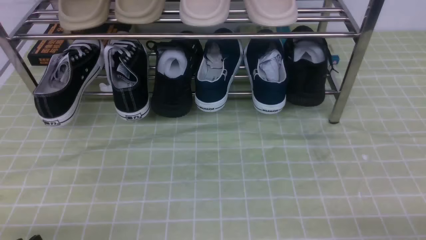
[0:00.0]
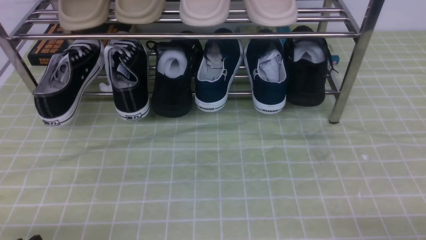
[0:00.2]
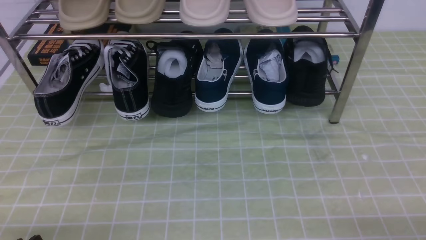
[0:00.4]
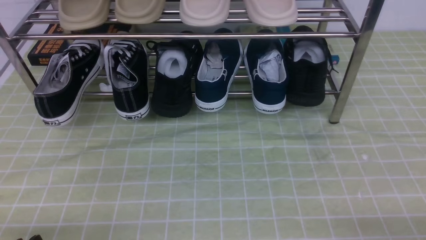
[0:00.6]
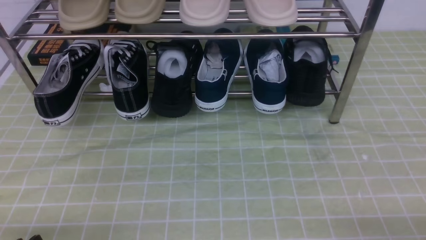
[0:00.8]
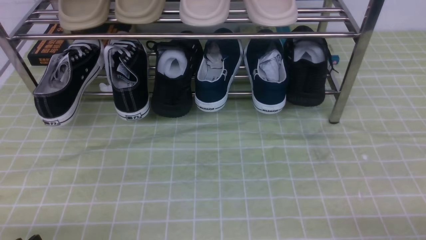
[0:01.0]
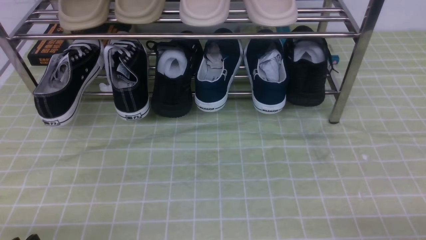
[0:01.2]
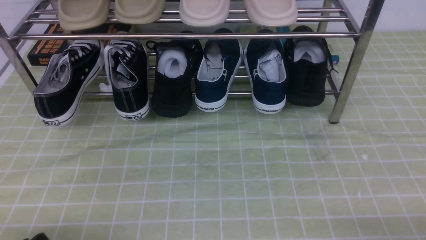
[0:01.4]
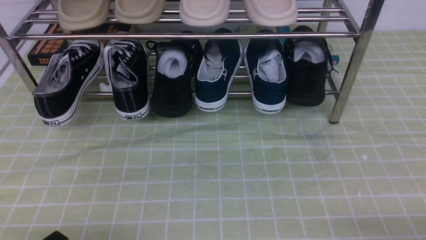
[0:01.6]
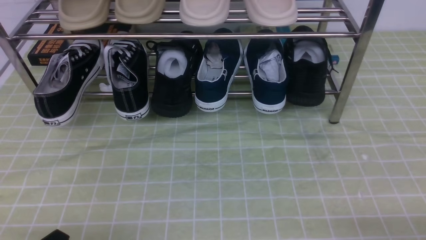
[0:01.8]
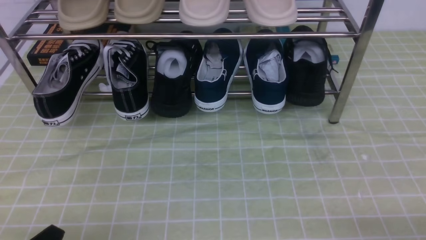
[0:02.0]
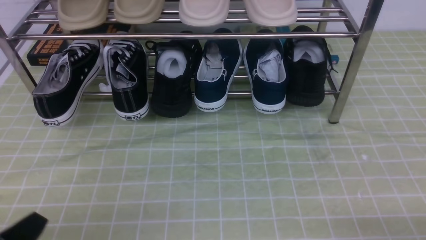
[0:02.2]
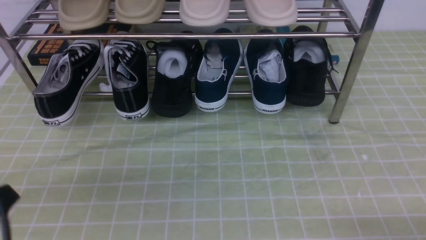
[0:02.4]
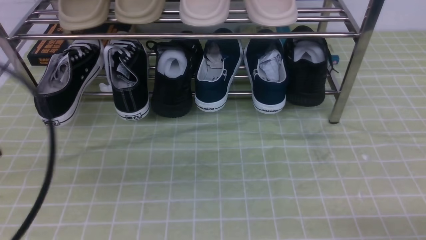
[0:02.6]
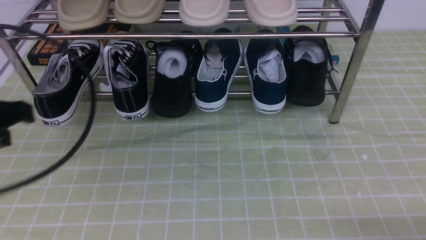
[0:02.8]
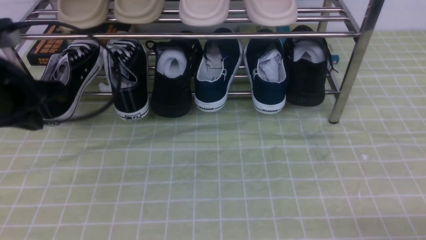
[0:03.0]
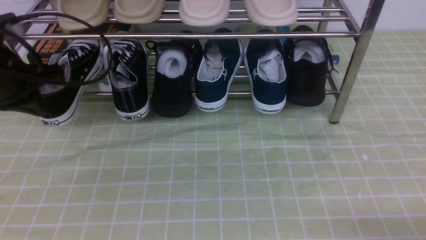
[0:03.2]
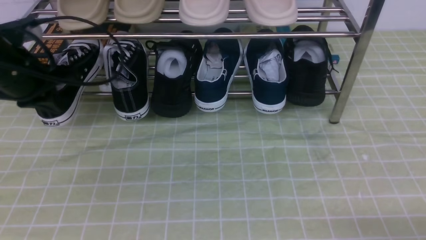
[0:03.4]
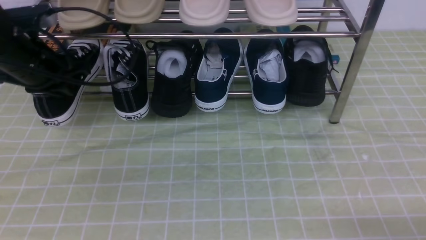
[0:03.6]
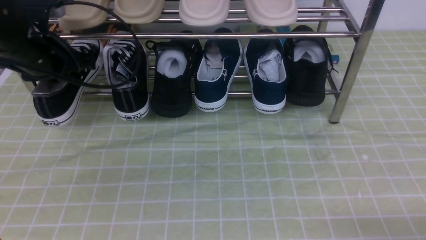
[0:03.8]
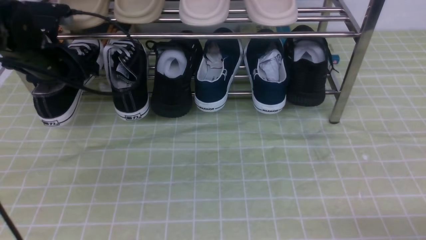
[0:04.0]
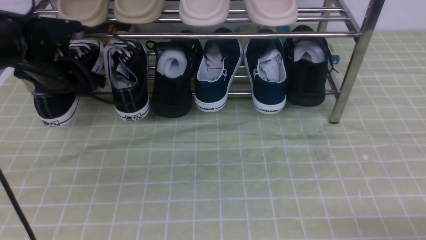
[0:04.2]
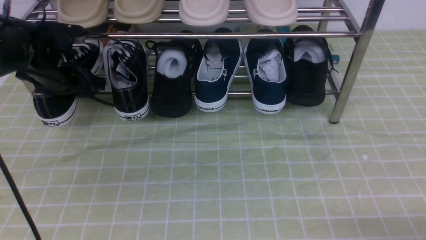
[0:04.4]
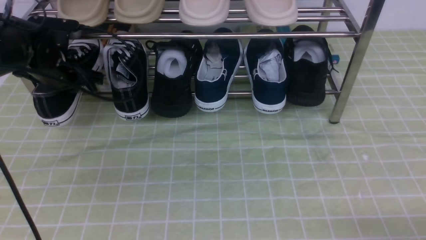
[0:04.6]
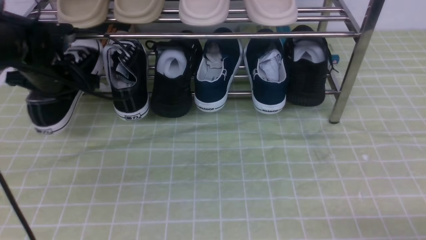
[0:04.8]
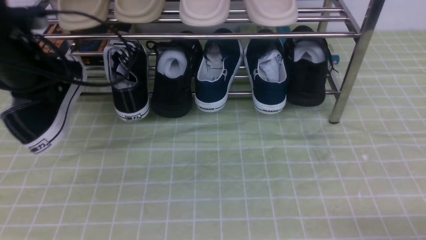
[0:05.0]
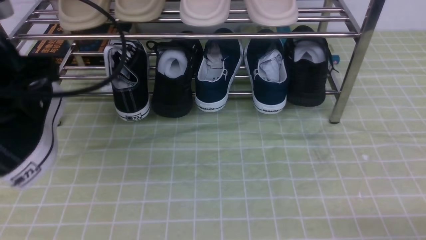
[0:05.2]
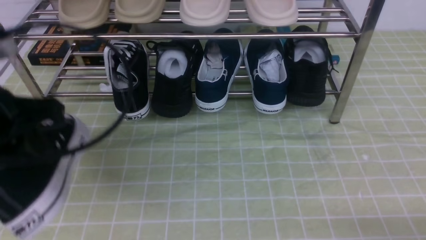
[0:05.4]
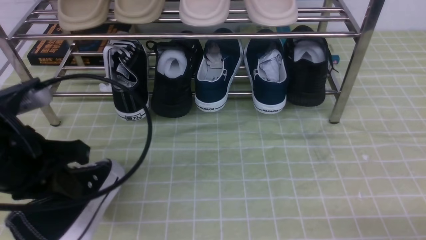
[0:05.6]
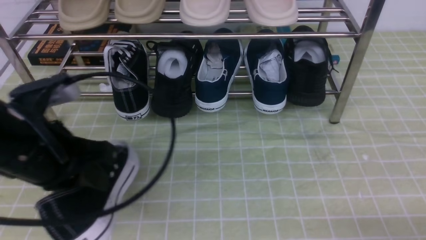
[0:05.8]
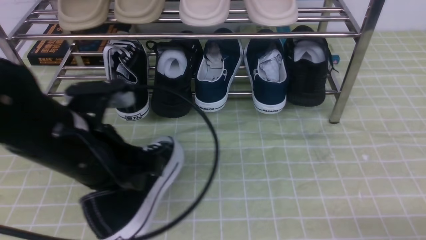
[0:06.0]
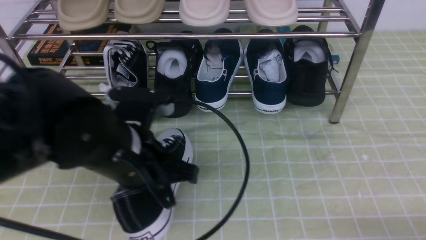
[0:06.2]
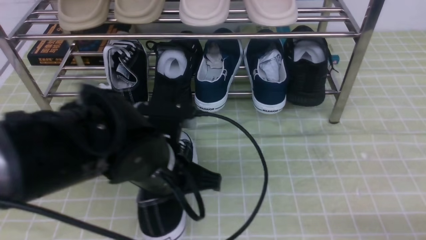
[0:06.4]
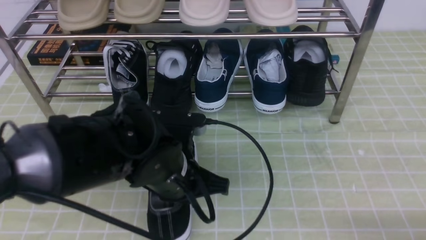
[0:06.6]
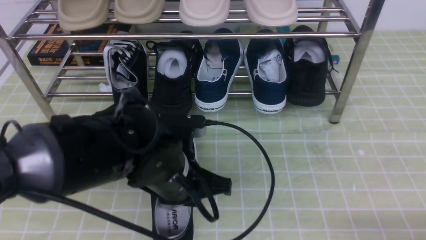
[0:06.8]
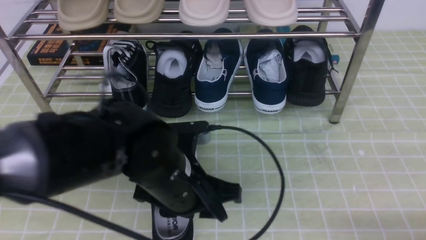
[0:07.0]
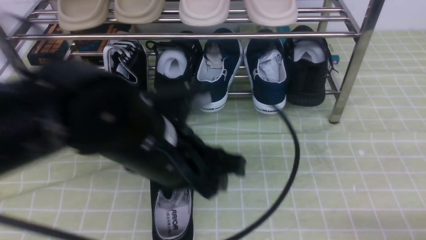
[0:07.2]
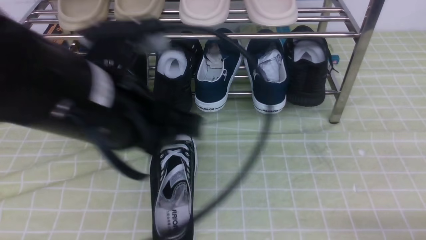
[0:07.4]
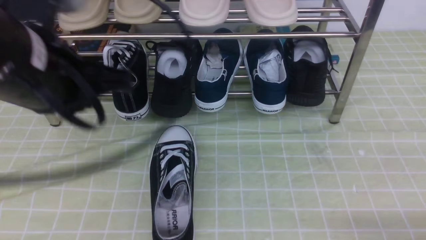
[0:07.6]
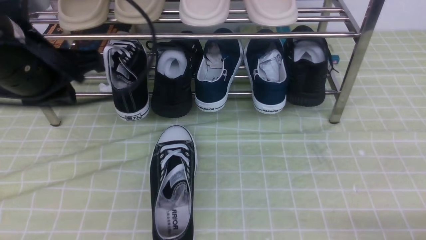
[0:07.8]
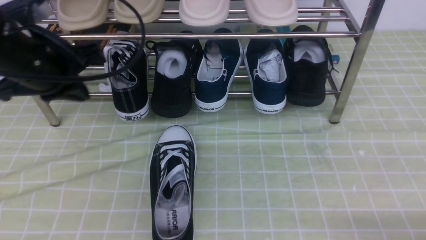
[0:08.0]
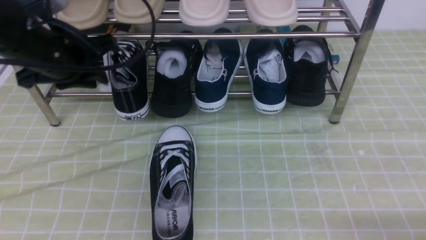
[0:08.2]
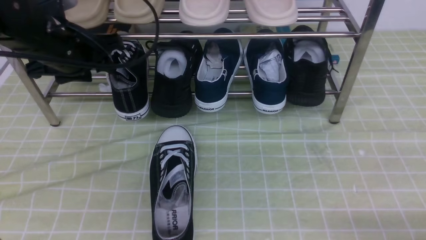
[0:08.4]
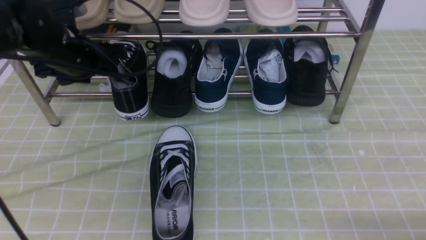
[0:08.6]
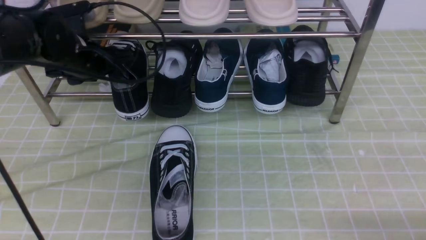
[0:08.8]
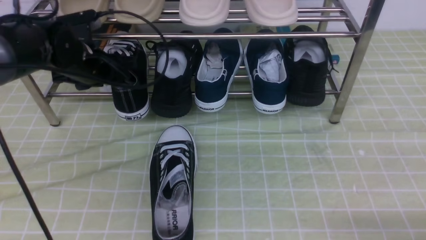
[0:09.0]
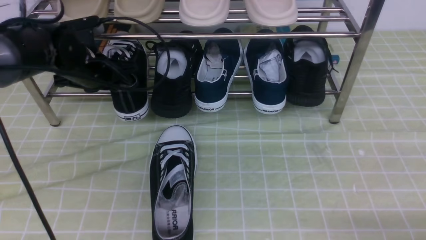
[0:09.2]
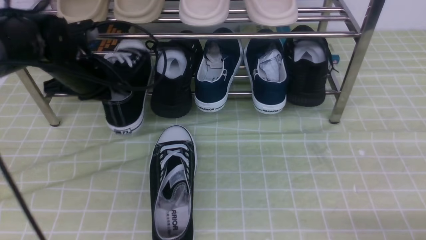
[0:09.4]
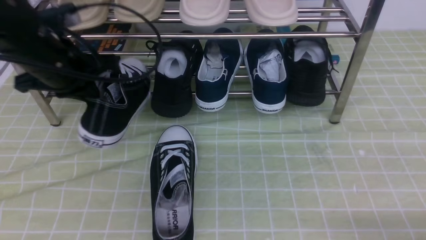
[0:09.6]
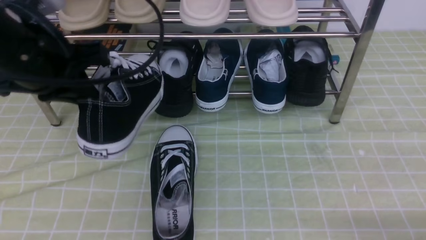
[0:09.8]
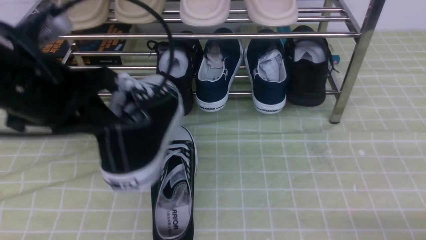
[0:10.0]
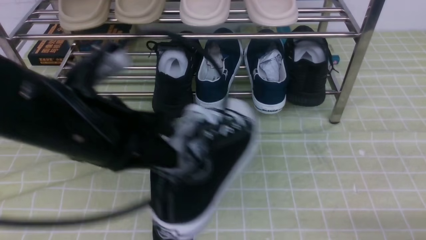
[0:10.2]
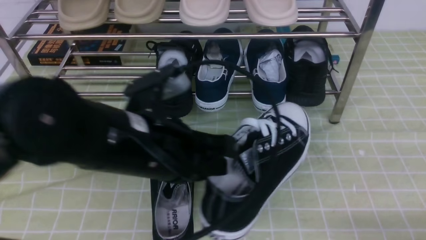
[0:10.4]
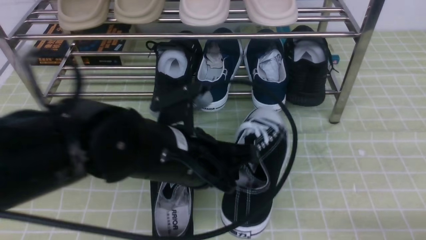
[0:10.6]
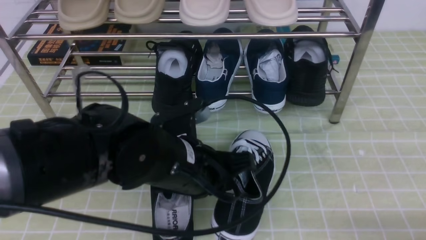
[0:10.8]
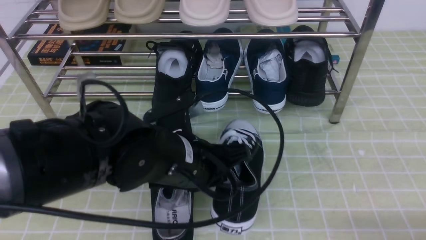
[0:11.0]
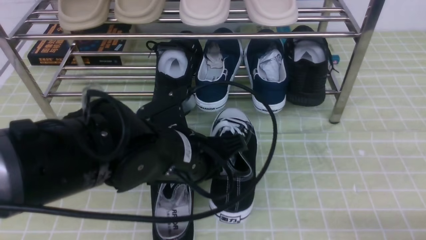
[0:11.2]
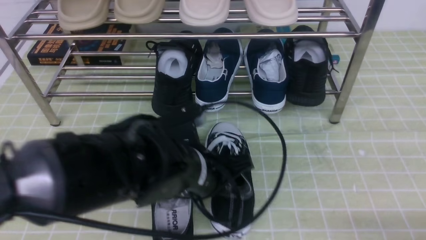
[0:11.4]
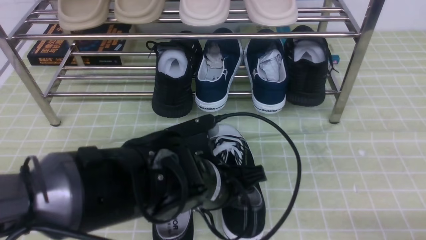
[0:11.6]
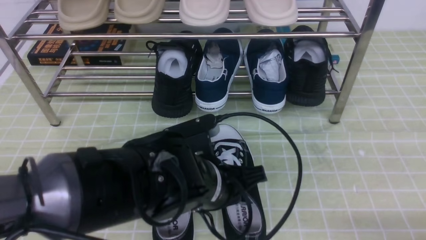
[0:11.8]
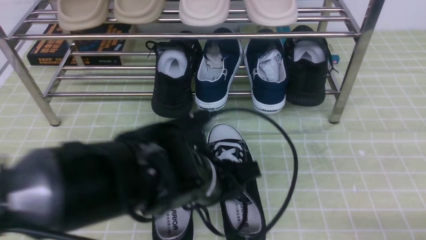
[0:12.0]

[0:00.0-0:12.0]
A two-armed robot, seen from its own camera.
Step, 0:00.0 to 0:04.6: use the left arm to clamp a shoe on the left side of the shoe rack.
Step, 0:04.8 to 0:07.0: Use your left arm to remove the clamped shoe from the shoe rack and put it down.
Step, 0:07.2 to 0:09.2: use the left arm to clamp a shoe on the left side of the shoe rack.
Step, 0:09.4 to 0:11.8: Use your left arm to remove the clamped shoe from the shoe rack and put it down.
0:01.6 to 0:03.0: The left gripper heads forward and upward, covering approximately 25 cm, and closes up.
0:03.0 to 0:04.4: The left gripper goes roughly 15 cm forward and downward, and opens up.
0:04.4 to 0:06.0: The left gripper heads backward and to the right, covering about 25 cm, and closes its fingers.
0:06.0 to 0:07.6: The left gripper moves upward, approximately 10 cm, and opens and closes again.
0:07.6 to 0:09.0: The left gripper is displaced forward and downward by about 20 cm, and opens.
0:09.0 to 0:10.4: The left gripper goes roughly 25 cm backward and to the right, and closes its fingers.
0:10.4 to 0:12.0: The left gripper heads to the right, covering some 5 cm, and opens.

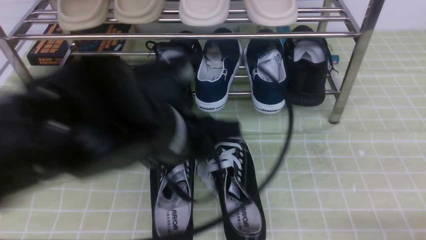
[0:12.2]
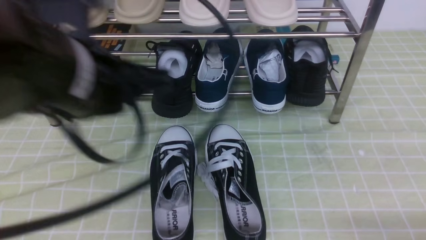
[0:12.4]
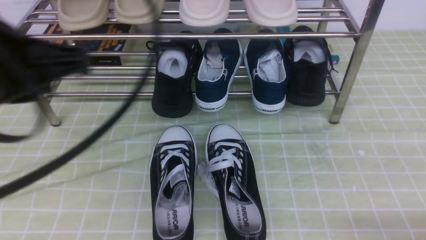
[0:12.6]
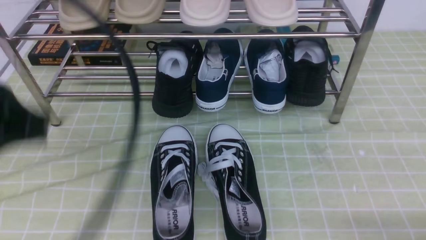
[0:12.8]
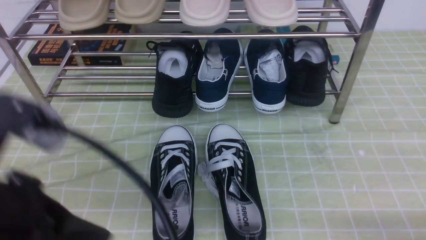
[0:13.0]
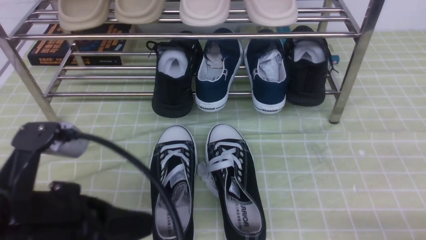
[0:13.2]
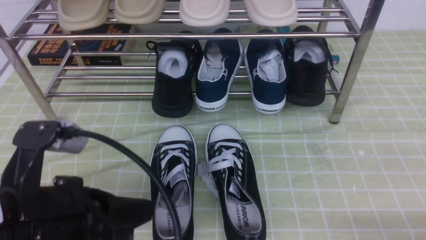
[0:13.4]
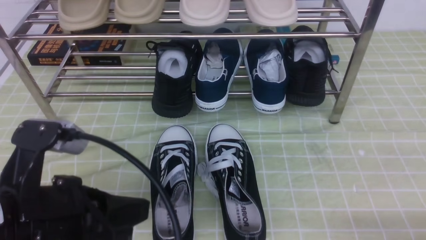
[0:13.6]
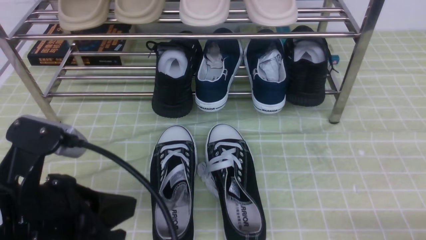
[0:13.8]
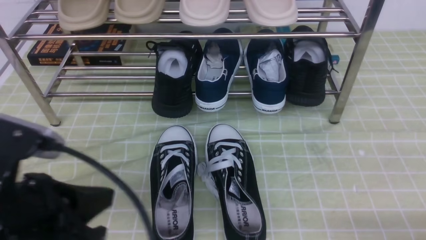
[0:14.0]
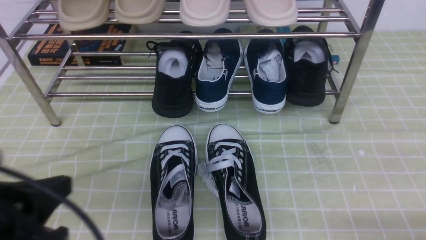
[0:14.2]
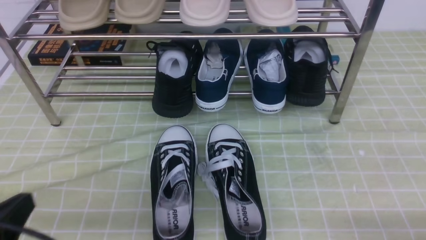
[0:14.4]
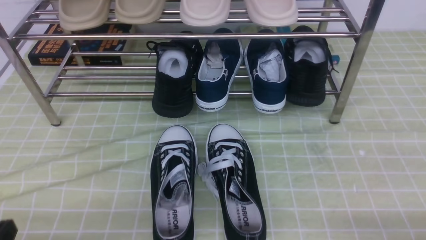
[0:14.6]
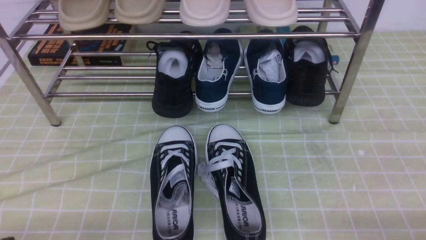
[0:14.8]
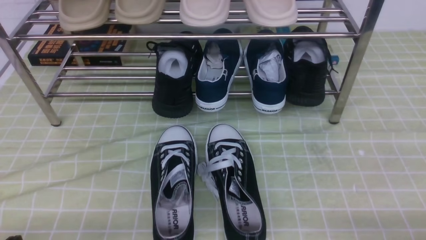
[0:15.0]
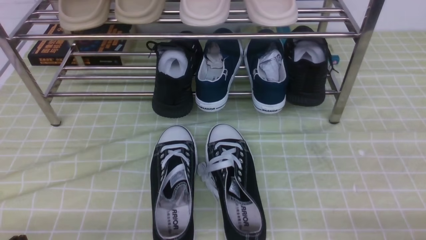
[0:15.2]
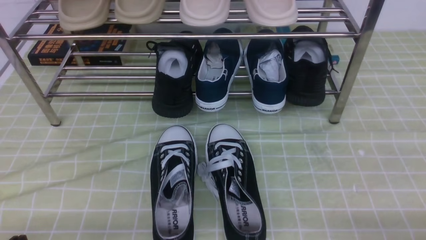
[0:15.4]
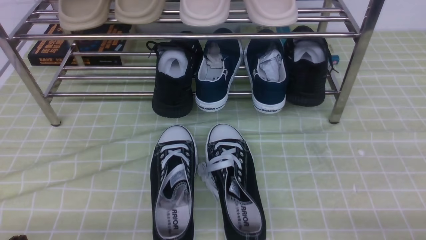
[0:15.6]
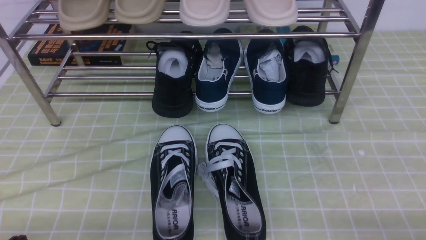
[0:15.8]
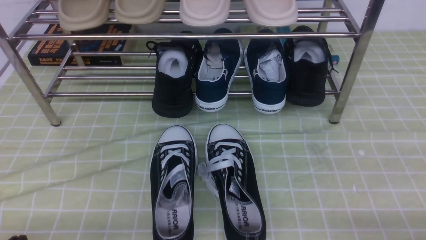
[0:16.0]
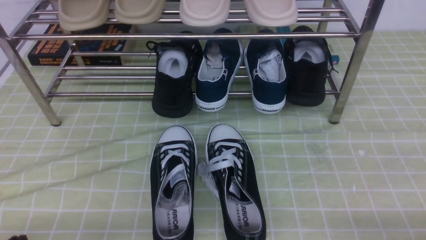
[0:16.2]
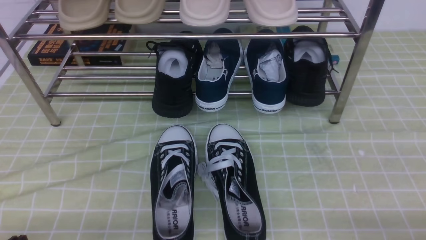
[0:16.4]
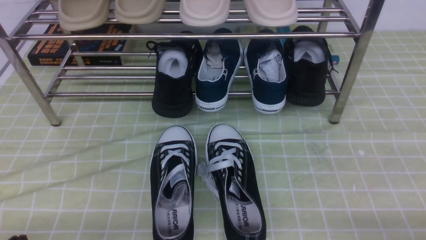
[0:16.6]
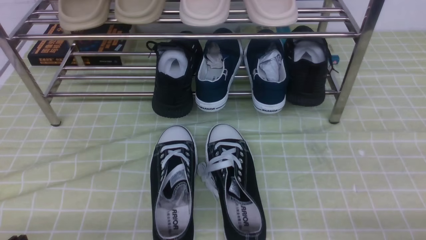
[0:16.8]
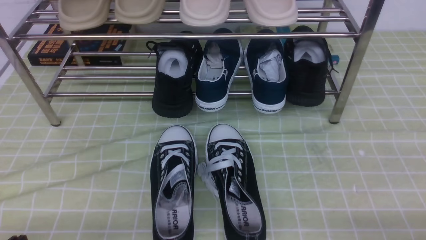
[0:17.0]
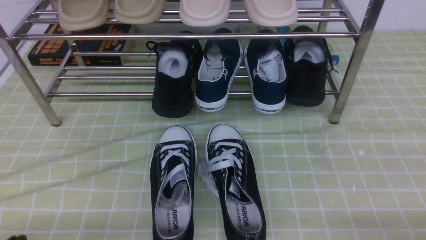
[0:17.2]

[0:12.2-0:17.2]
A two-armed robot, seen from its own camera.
0:12.2 to 0:13.8: The left gripper travels to the left and backward by about 15 cm, and closes up.
0:13.8 to 0:15.6: The left gripper heads downward, to the left and backward, covering some 15 cm.
0:15.6 to 0:17.2: Both grippers stay put.
